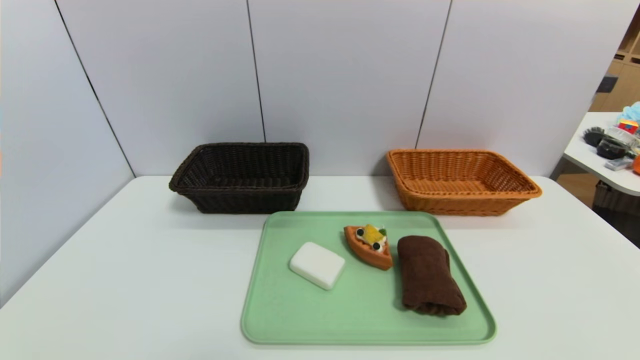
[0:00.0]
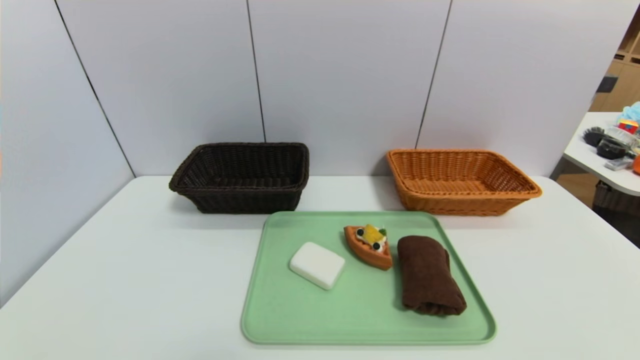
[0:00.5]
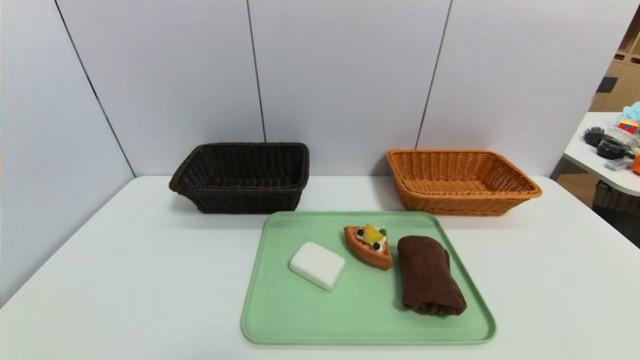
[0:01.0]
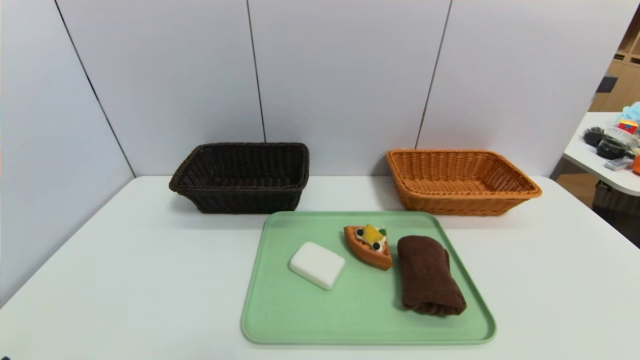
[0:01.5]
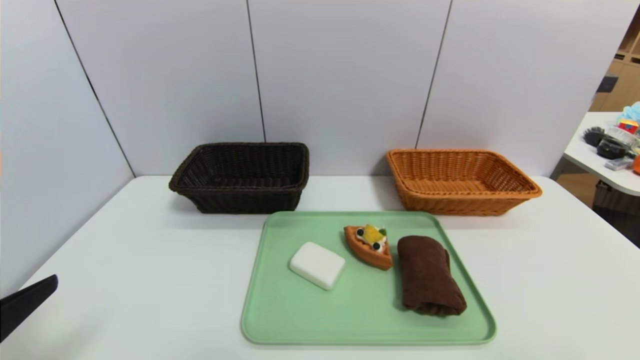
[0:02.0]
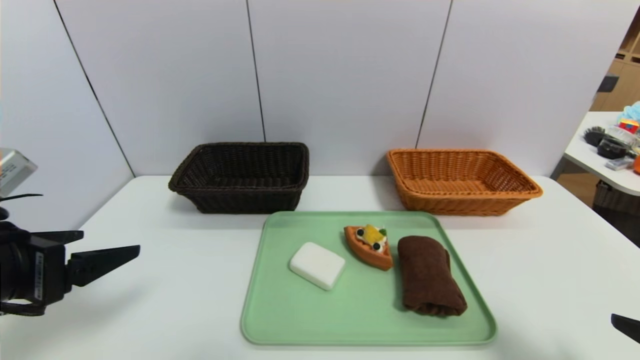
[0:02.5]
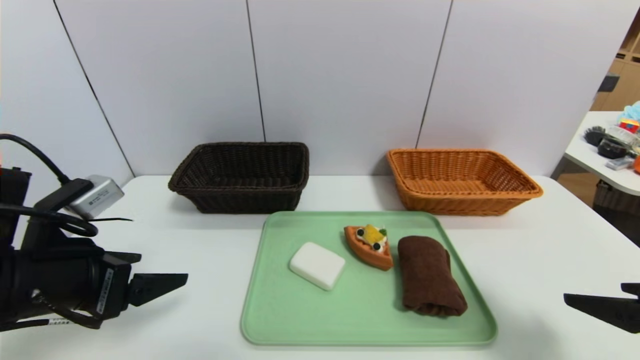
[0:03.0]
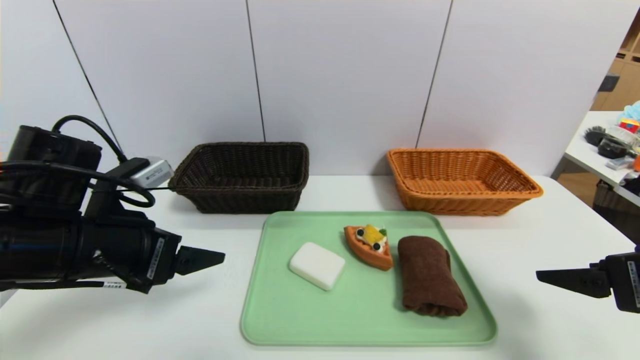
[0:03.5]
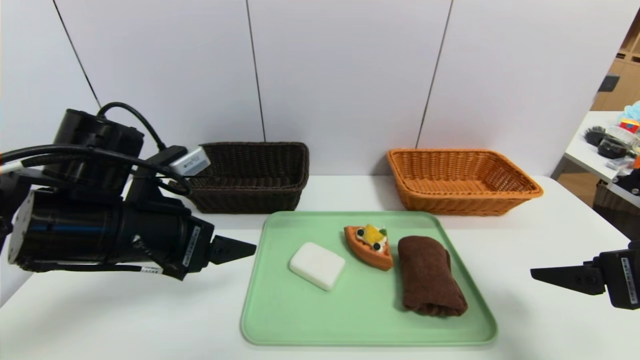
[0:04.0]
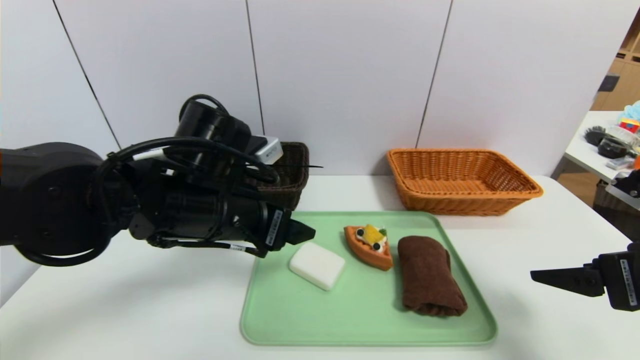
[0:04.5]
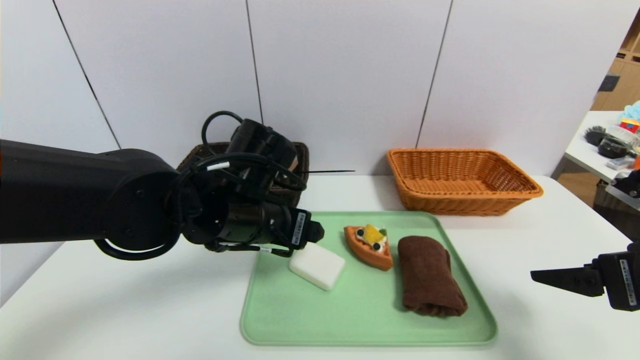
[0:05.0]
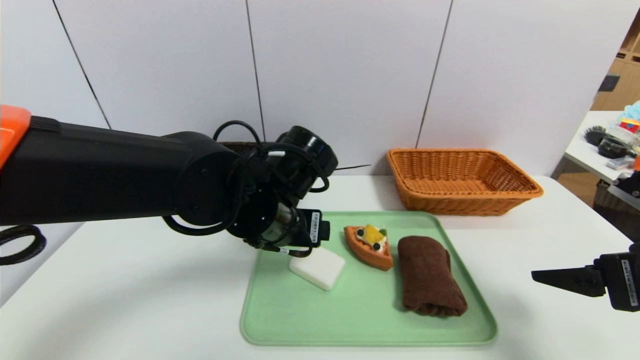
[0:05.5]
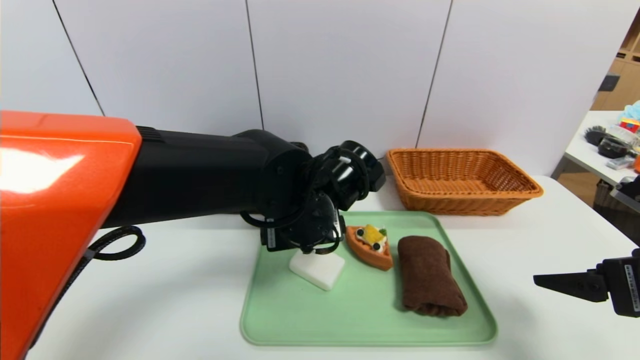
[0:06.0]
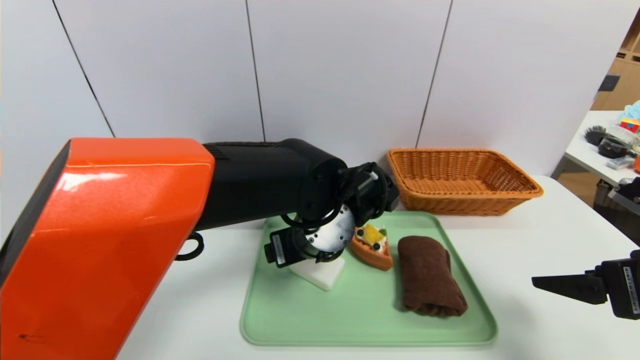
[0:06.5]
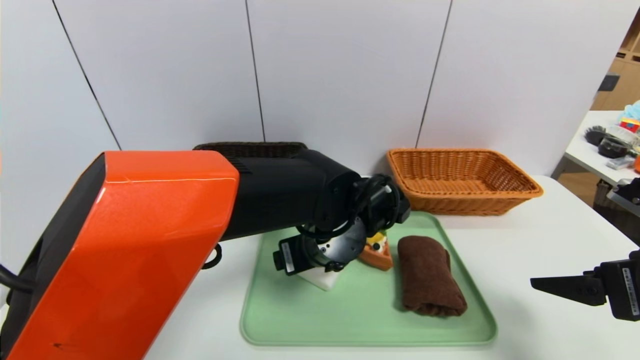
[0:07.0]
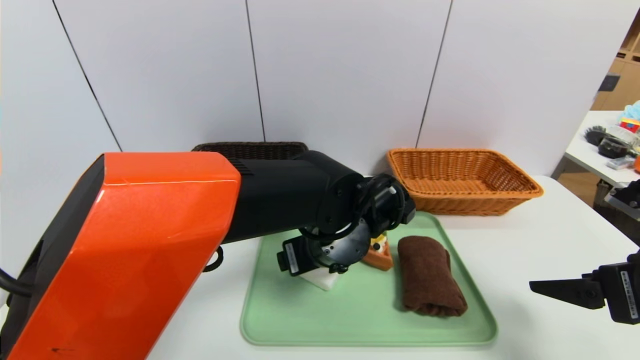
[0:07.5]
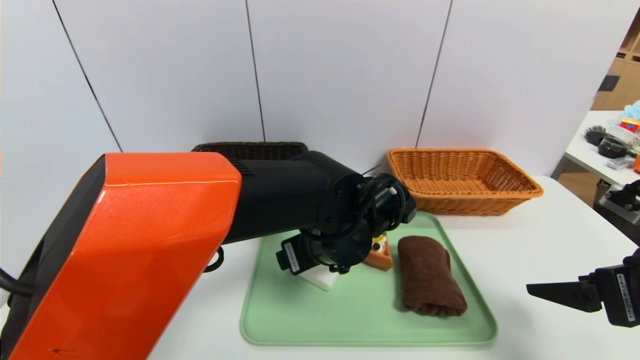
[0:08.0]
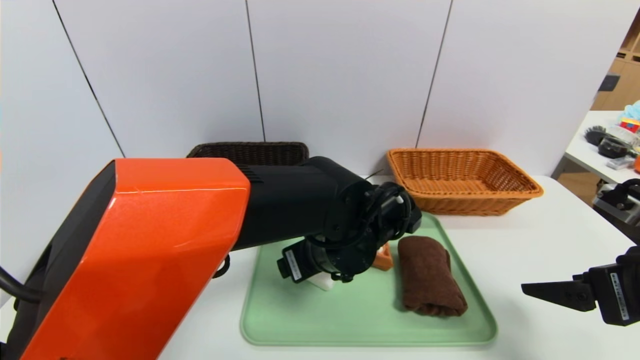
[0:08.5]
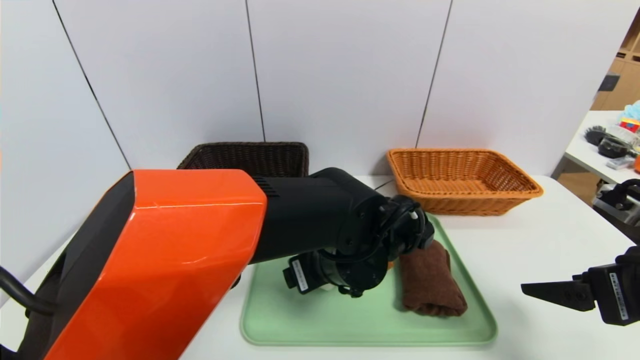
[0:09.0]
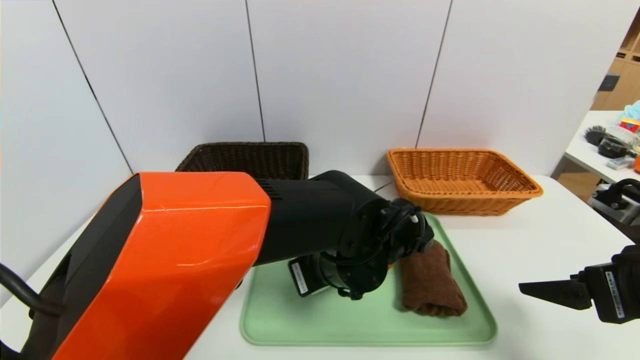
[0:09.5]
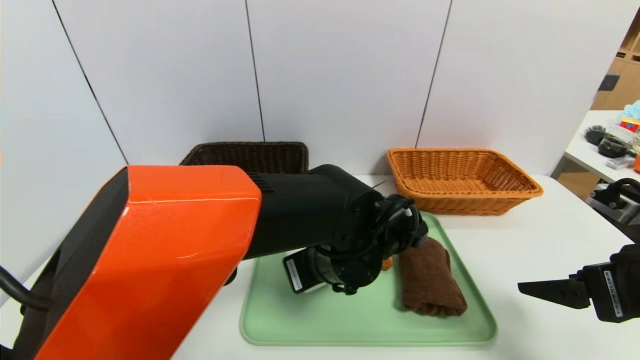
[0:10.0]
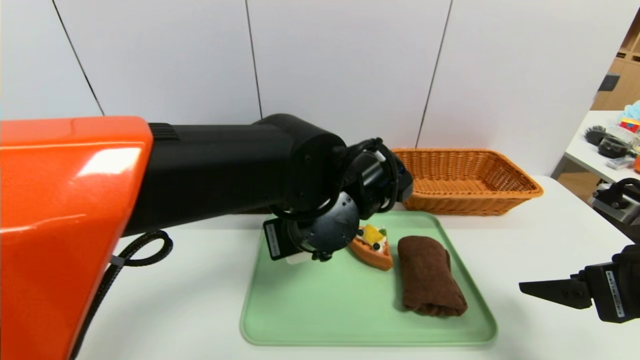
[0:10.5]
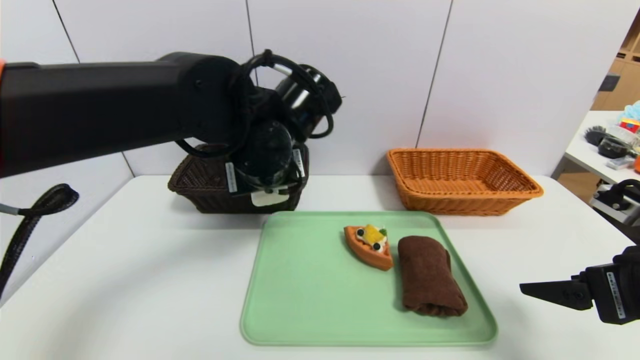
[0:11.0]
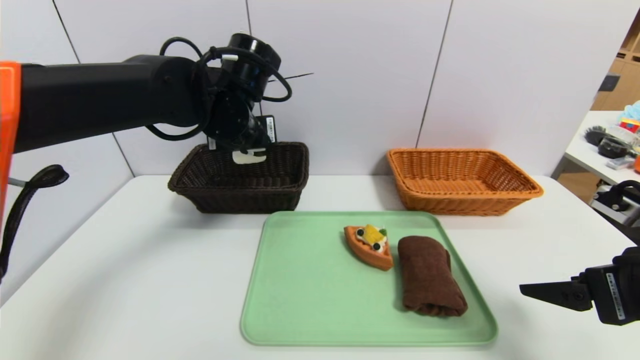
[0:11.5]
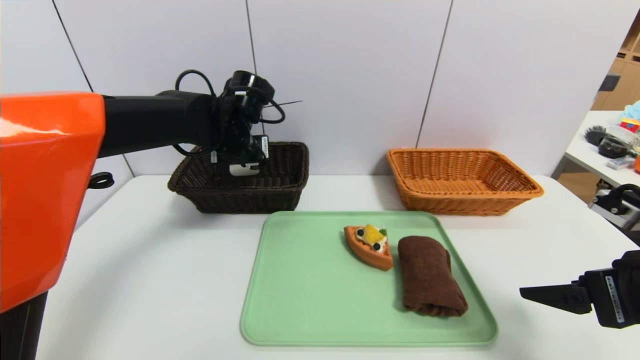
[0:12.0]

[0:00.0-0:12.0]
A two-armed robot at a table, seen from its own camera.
Task of the whole recording: place the food in the right basket with the right gripper, and place the non food items in the left basket with the left gripper.
0:00.0 to 0:02.0: The left gripper shifts about 15 cm upward and forward.
0:02.0 to 0:04.0: The right gripper travels forward by approximately 15 cm, while the left gripper is displaced forward and to the right by approximately 20 cm.
0:04.0 to 0:06.0: The left gripper is displaced to the right by some 20 cm.
0:08.0 to 0:10.0: The left gripper closes.
0:10.0 to 0:12.0: The left gripper goes roughly 25 cm to the left, forward and upward.

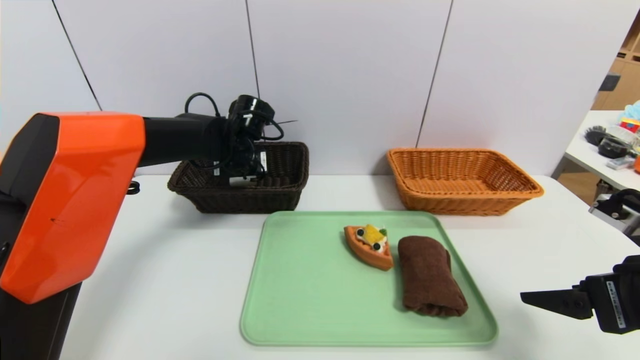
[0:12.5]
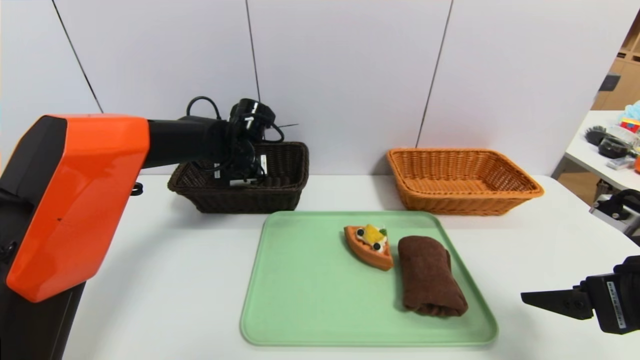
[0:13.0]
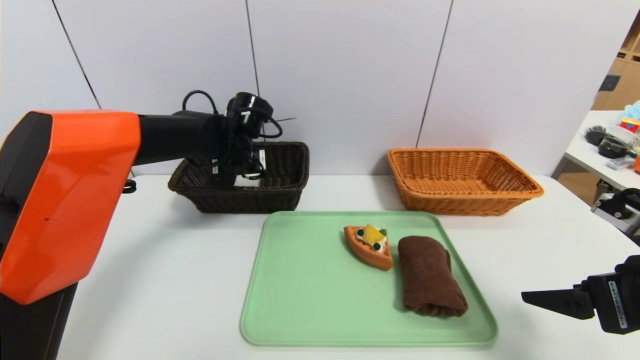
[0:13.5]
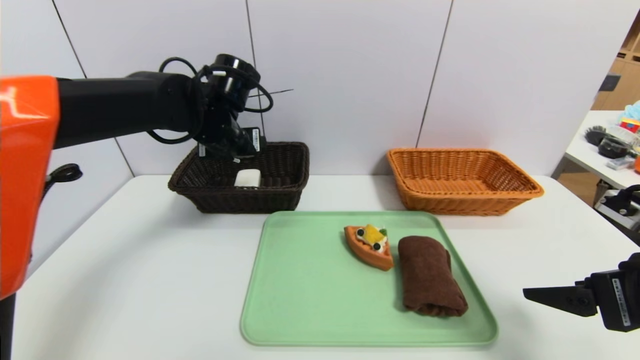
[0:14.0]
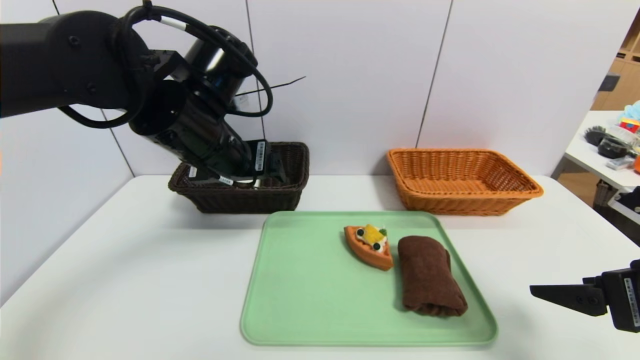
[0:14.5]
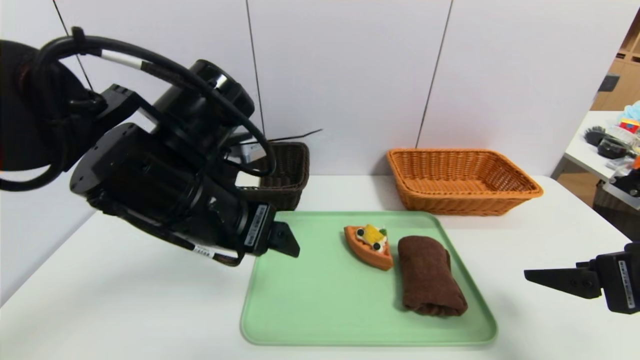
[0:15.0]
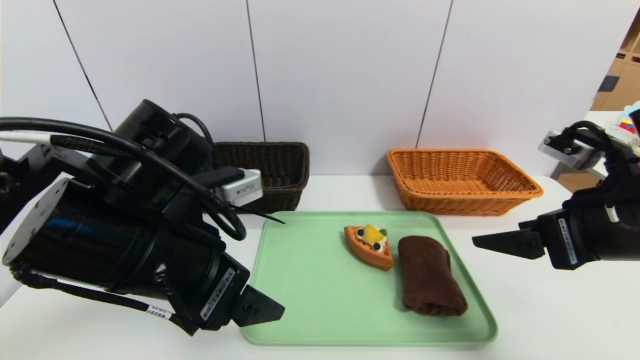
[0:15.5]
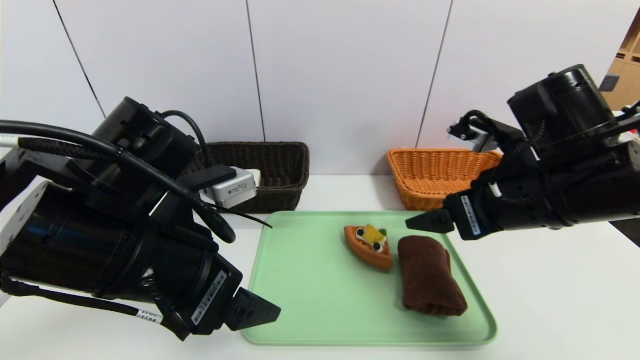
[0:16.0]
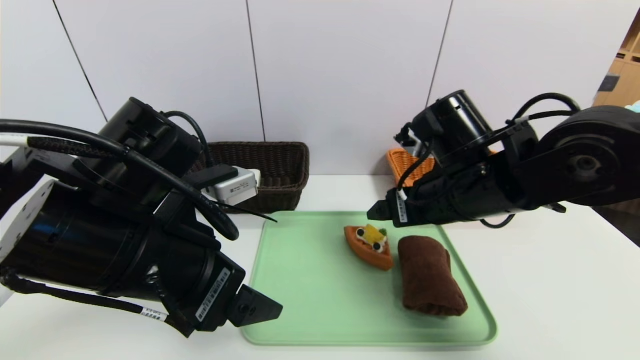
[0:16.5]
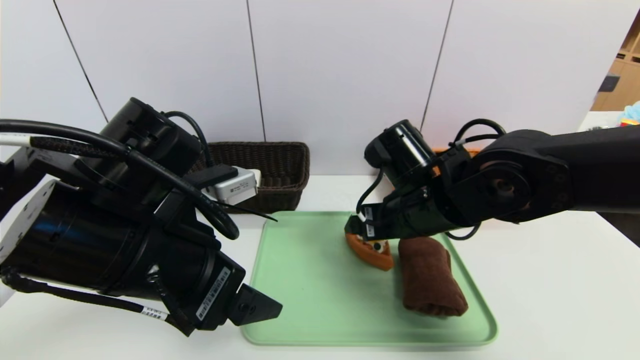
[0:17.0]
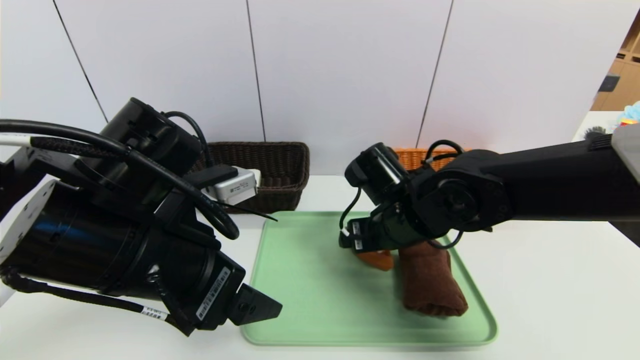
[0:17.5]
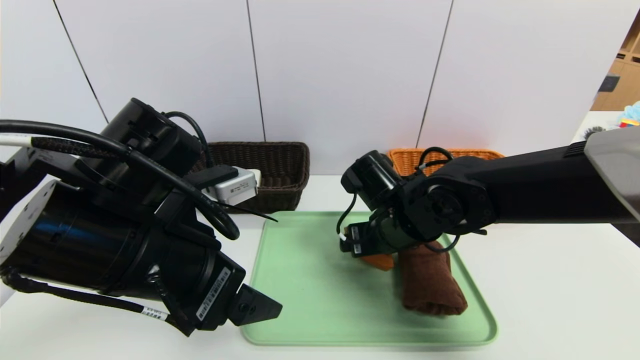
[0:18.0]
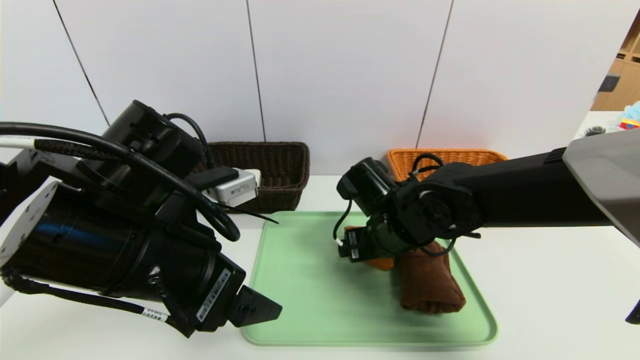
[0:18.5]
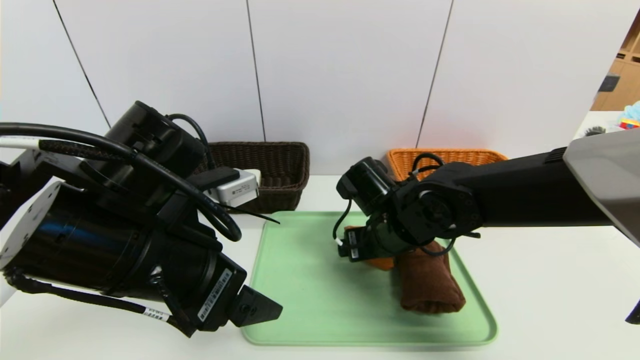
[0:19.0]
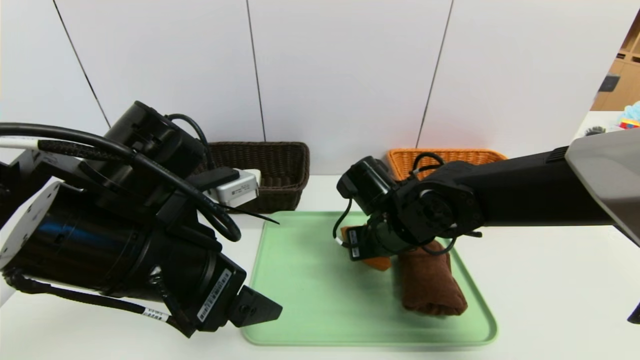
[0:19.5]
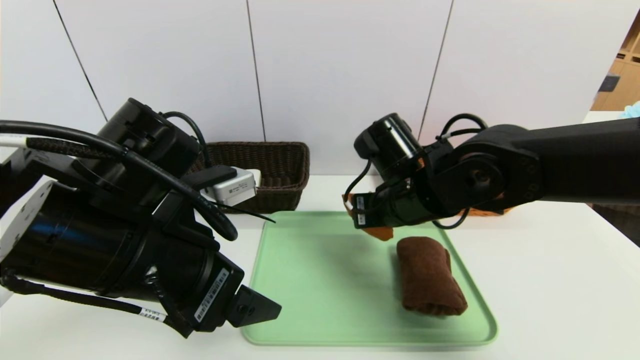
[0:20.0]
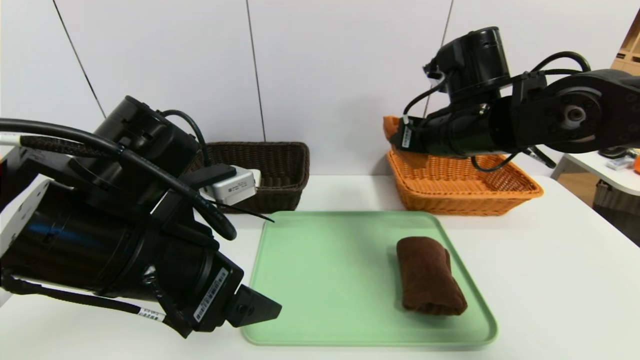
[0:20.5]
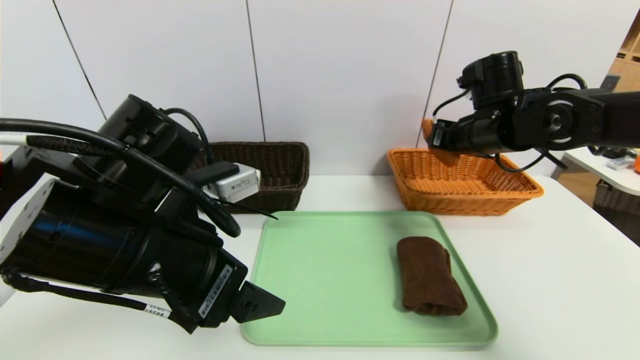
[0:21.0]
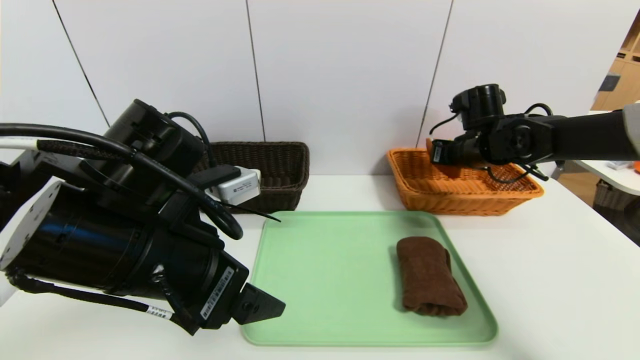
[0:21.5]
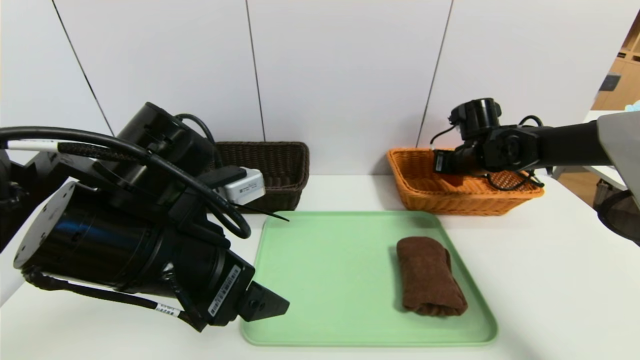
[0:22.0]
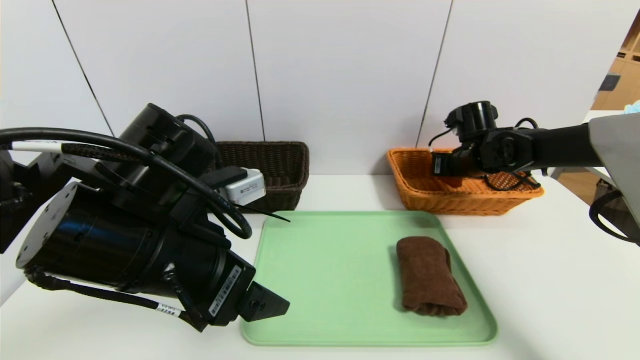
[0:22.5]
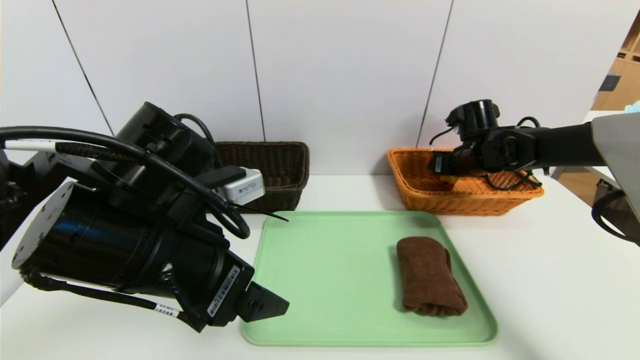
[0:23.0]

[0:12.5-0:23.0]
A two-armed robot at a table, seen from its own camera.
Task of the whole recording: place the food in the right basket with the right gripper, and place the non food items in the left basket with the left gripper.
0:12.5 to 0:14.5: The left gripper is displaced backward and upward by some 20 cm, and opens.
0:14.5 to 0:16.5: The left gripper is displaced backward by approximately 10 cm. The right gripper shifts roughly 20 cm to the left and forward.
0:16.5 to 0:19.0: The right gripper goes approximately 10 cm downward and to the left.
0:19.0 to 0:21.0: The right gripper travels to the right, upward and forward by roughly 20 cm, and closes its fingers.
0:21.0 to 0:23.0: The right gripper is displaced downward and forward by roughly 10 cm, and opens.
